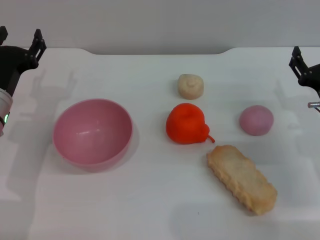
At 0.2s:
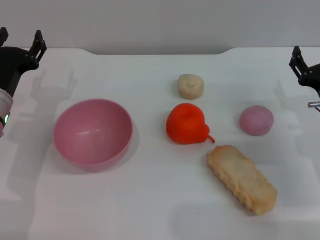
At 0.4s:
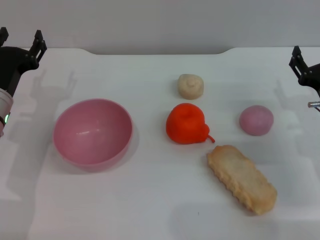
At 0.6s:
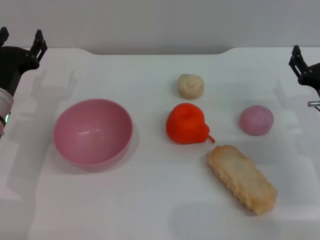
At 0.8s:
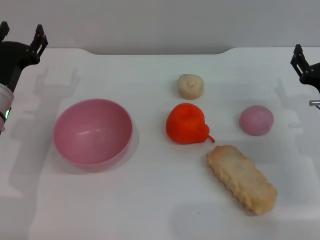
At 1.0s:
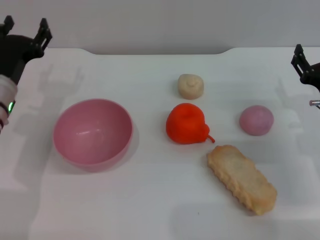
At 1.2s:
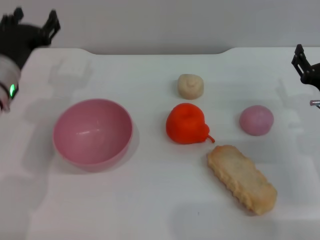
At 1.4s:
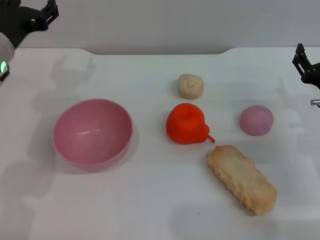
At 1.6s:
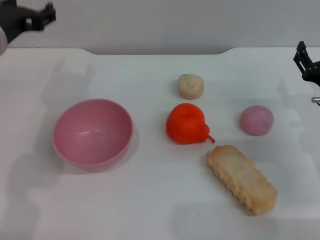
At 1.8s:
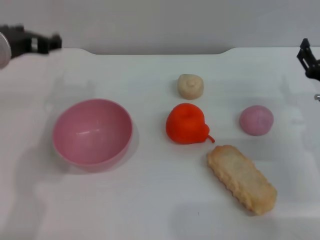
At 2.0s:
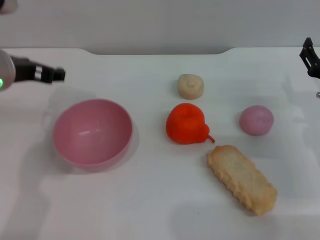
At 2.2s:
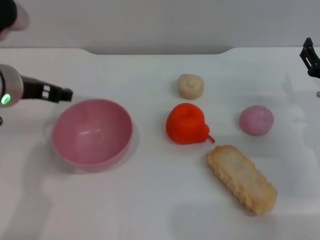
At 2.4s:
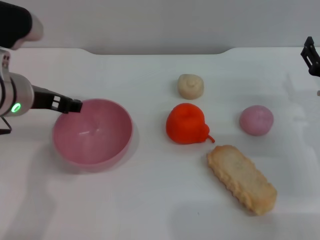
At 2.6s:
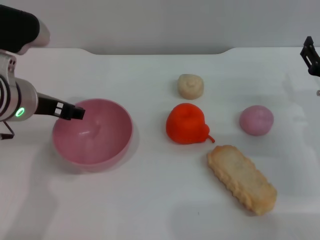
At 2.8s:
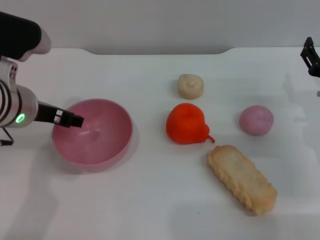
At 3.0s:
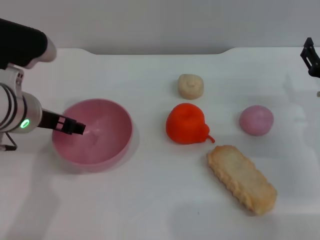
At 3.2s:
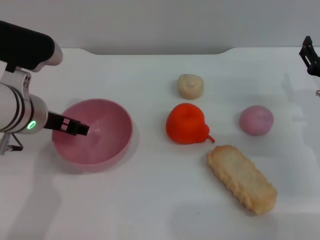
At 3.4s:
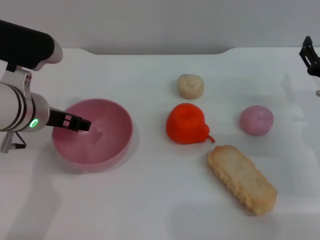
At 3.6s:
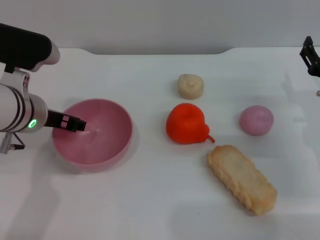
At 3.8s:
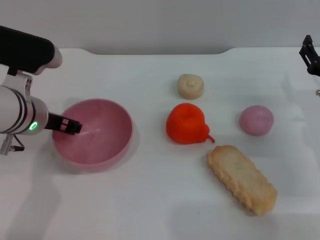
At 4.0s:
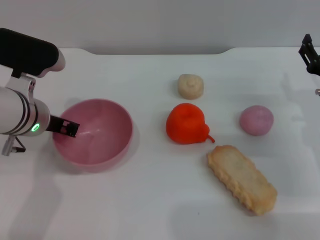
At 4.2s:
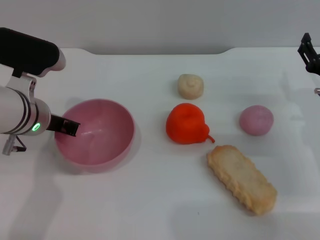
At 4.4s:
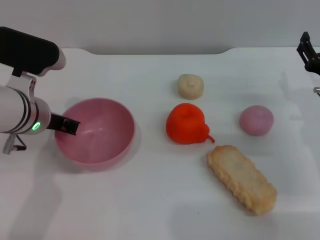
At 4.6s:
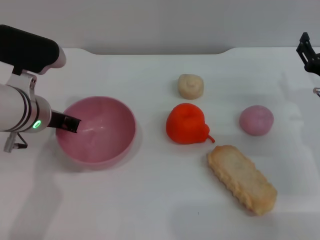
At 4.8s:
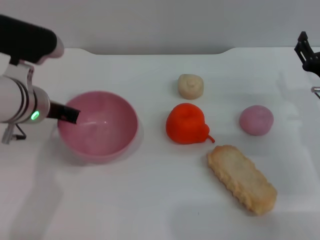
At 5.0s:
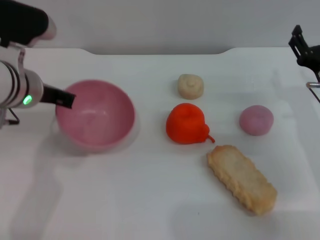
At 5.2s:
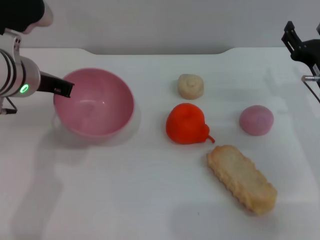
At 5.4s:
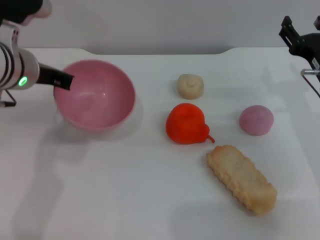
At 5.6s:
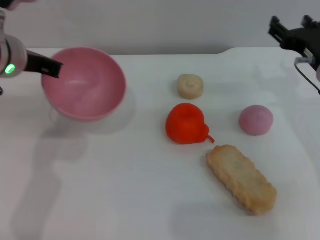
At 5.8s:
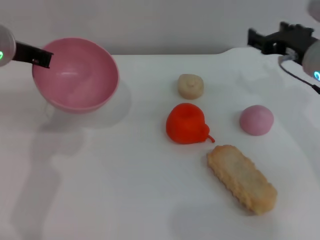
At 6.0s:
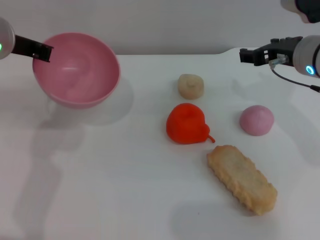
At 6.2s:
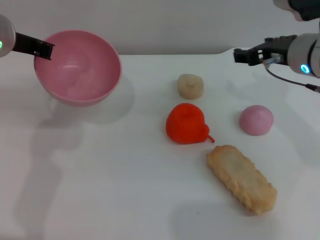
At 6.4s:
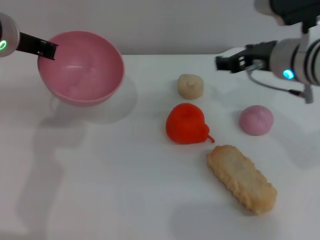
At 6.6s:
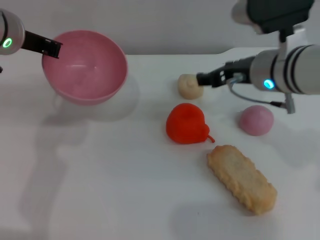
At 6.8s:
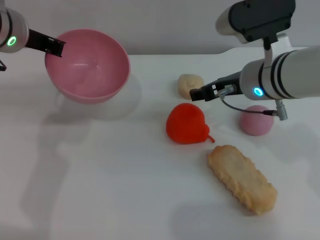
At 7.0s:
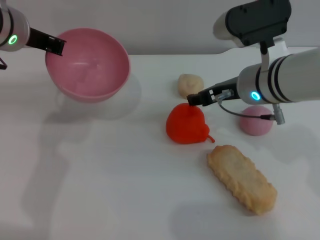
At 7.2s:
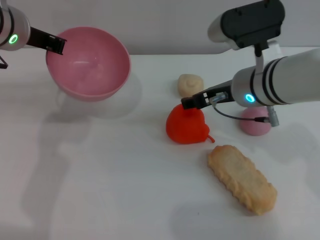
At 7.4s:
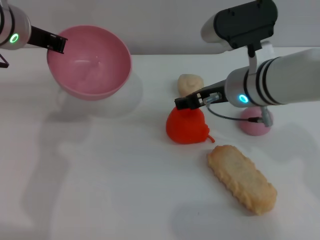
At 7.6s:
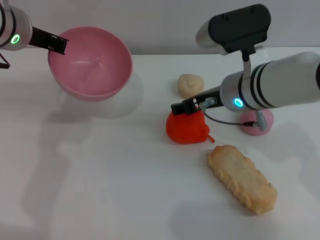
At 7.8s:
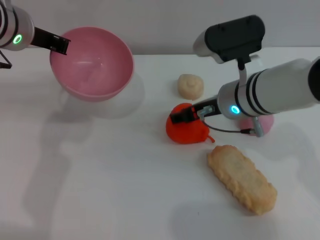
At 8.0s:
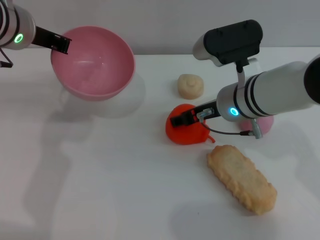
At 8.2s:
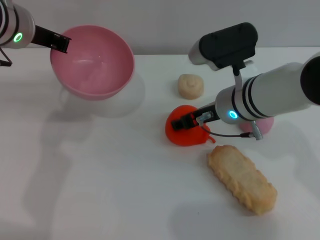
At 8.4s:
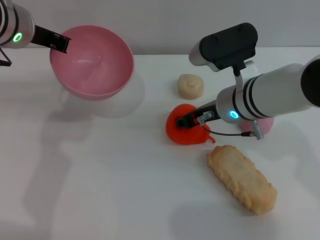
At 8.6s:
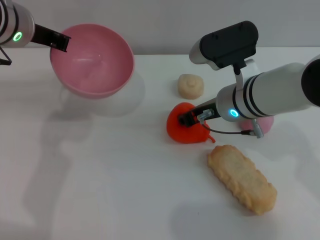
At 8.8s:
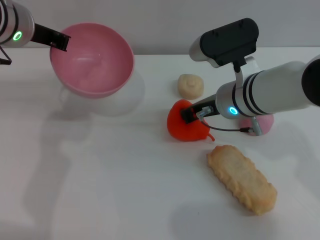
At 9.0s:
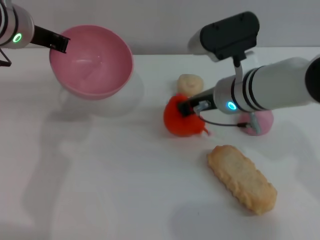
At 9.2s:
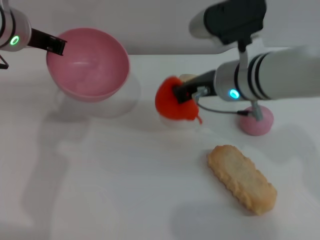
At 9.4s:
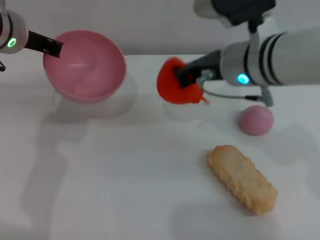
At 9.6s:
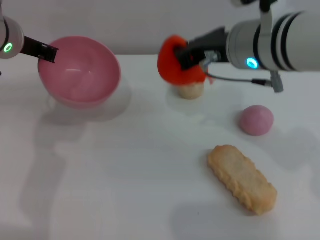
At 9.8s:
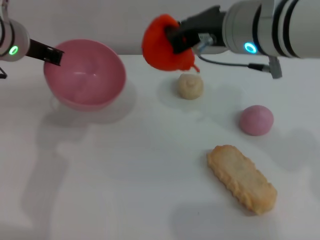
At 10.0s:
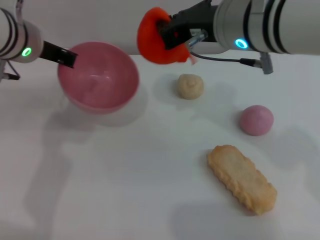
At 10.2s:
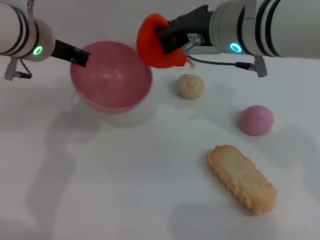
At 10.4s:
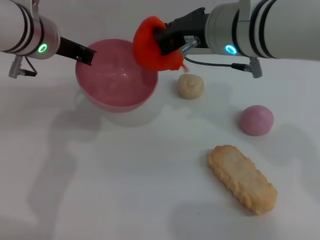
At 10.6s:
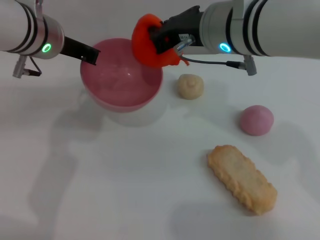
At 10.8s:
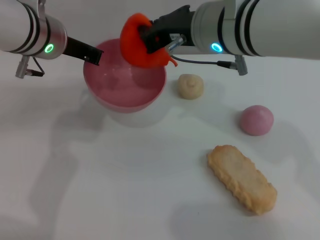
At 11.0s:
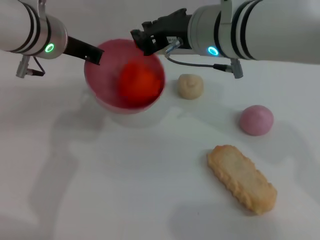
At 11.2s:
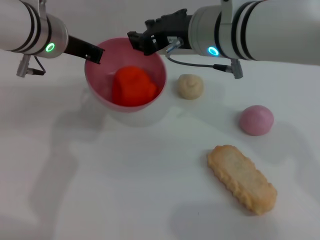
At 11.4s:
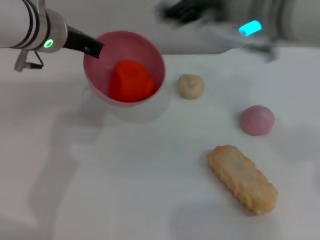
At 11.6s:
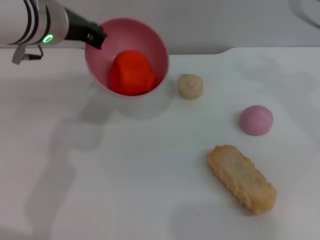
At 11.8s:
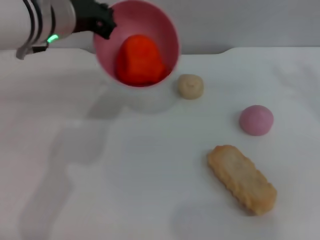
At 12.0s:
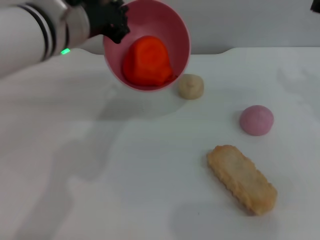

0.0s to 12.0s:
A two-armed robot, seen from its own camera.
Task of the whole recording: put the orange into the pink bowl and pour it out repeatedly.
Step, 0.0s to 6.0s: Pick up the bowl with the left gripper.
Step, 6.4s to 9.2s: Pick up the orange with the right gripper.
Step, 9.4s to 11.2s: Place the orange into the bowl.
0.0s to 1.6s: The left gripper goes some 15 cm upward.
1.6s to 3.0s: The left gripper changes place by roughly 5 cm.
3.0s to 4.4s: The left gripper closes.
4.4s to 6.0s: The left gripper is displaced upward by approximately 10 cm. Meanwhile the right gripper travels upward and to the left by some 15 cm.
6.0s to 7.6s: The right gripper is displaced to the left by some 10 cm.
7.6s to 9.0s: The right gripper closes up.
9.0s to 10.4s: The right gripper heads upward, covering approximately 10 cm.
10.4s to 12.0s: The right gripper shifts roughly 20 cm to the right, and opens its fingers; the left gripper changes place by some 5 cm.

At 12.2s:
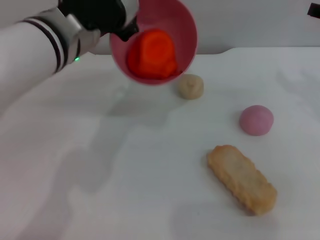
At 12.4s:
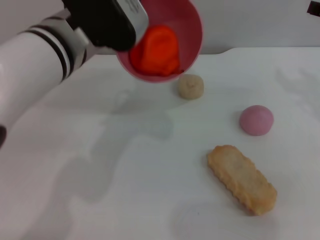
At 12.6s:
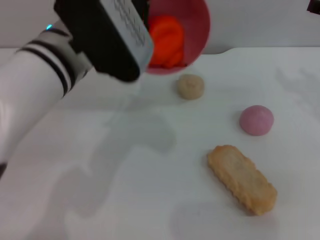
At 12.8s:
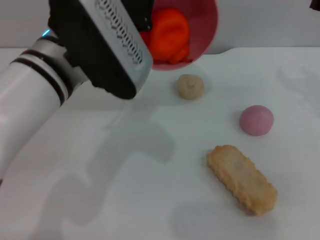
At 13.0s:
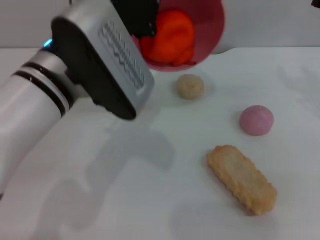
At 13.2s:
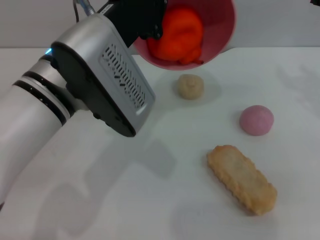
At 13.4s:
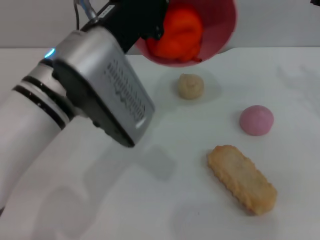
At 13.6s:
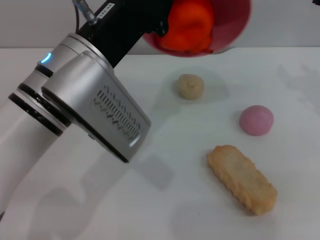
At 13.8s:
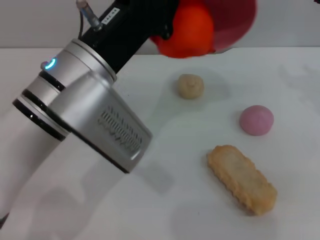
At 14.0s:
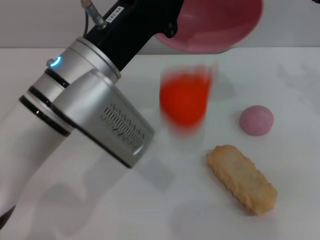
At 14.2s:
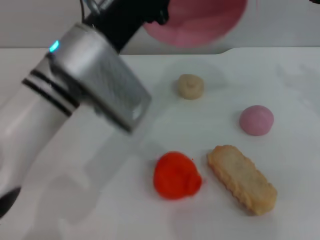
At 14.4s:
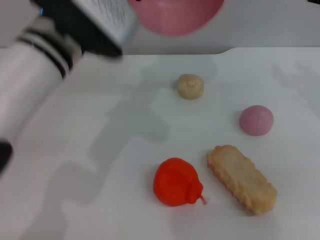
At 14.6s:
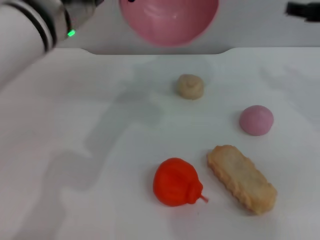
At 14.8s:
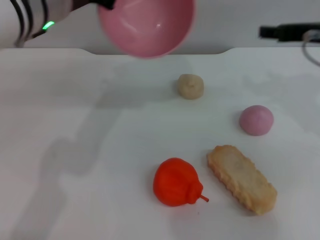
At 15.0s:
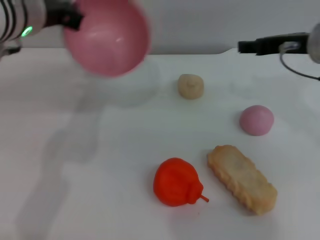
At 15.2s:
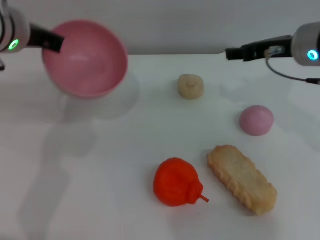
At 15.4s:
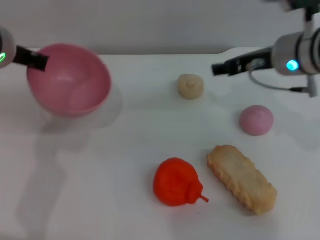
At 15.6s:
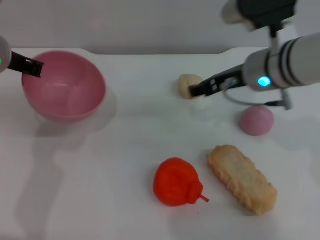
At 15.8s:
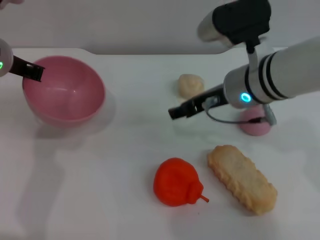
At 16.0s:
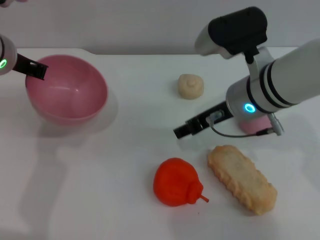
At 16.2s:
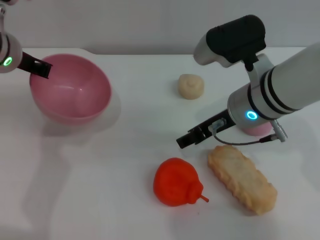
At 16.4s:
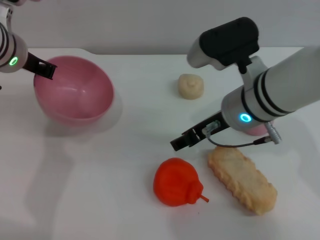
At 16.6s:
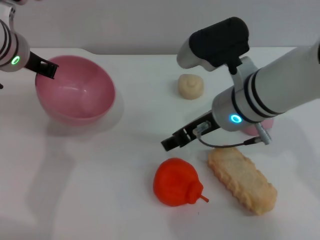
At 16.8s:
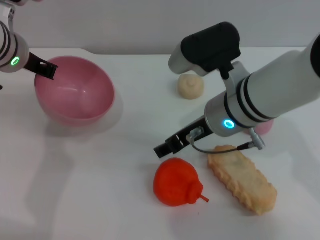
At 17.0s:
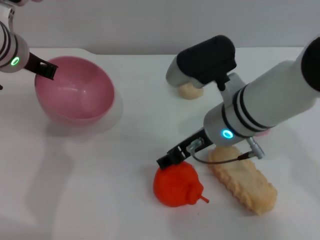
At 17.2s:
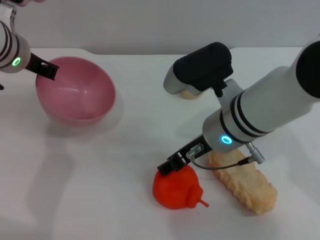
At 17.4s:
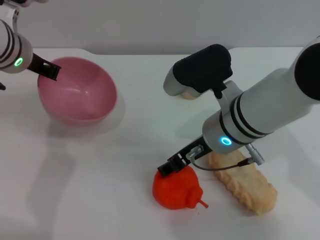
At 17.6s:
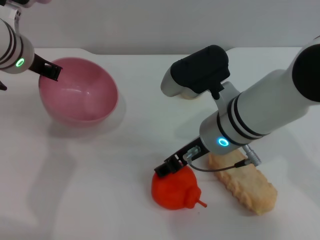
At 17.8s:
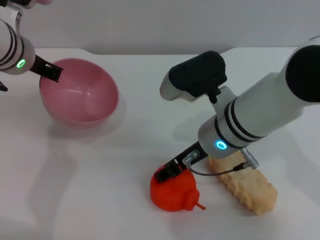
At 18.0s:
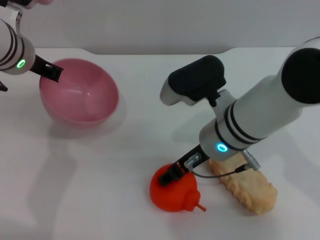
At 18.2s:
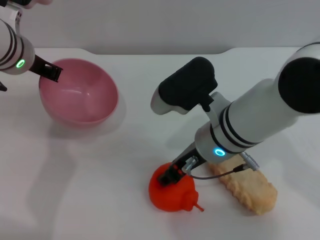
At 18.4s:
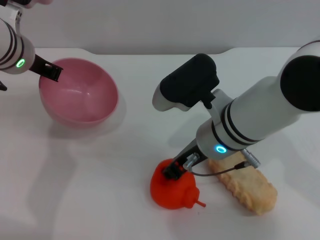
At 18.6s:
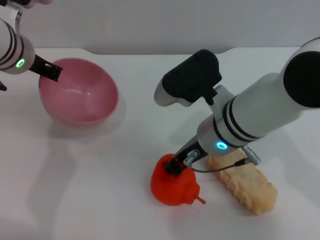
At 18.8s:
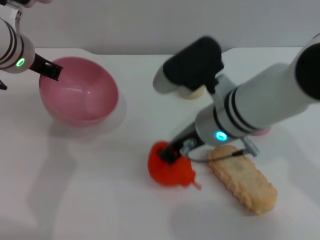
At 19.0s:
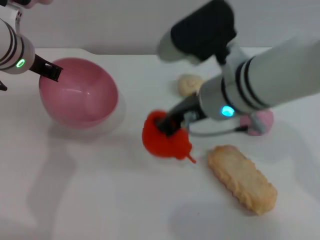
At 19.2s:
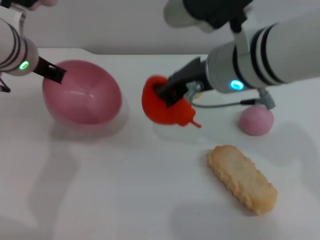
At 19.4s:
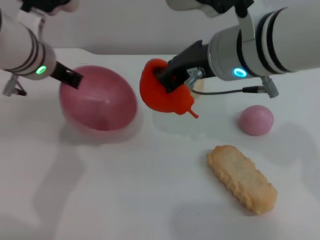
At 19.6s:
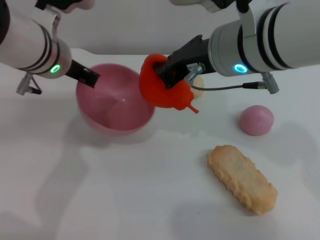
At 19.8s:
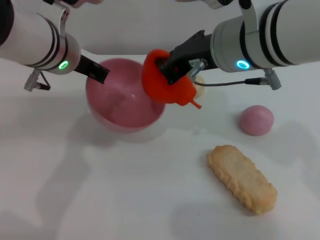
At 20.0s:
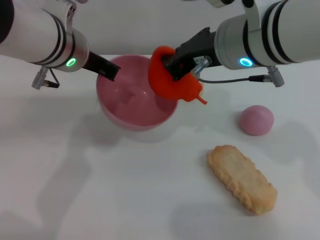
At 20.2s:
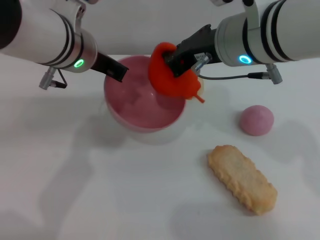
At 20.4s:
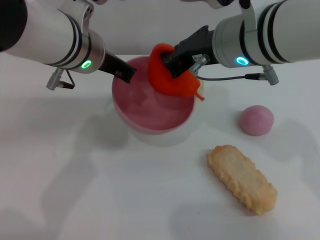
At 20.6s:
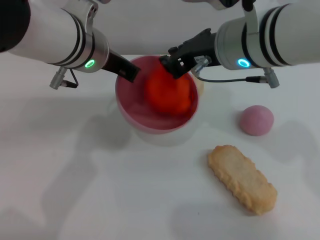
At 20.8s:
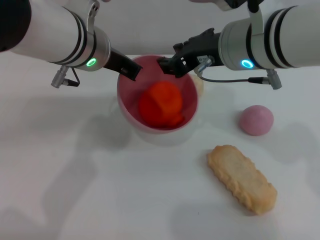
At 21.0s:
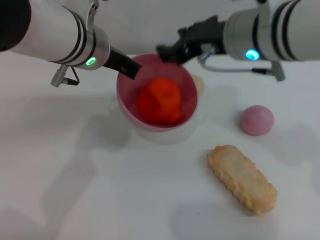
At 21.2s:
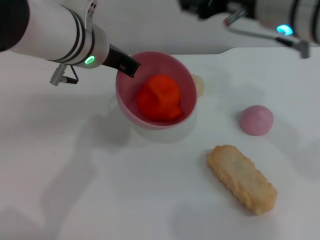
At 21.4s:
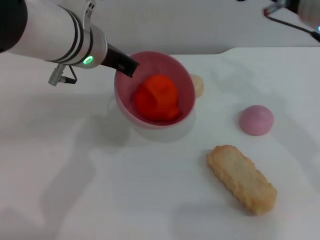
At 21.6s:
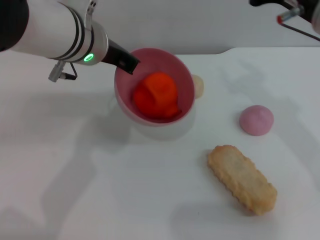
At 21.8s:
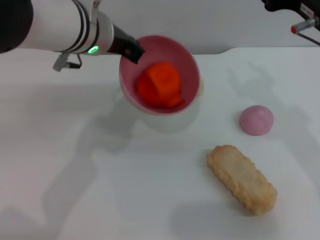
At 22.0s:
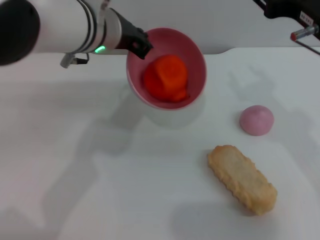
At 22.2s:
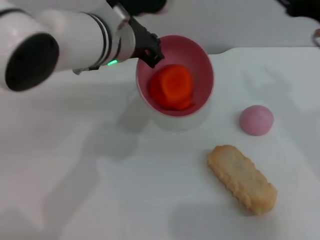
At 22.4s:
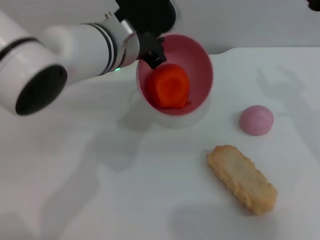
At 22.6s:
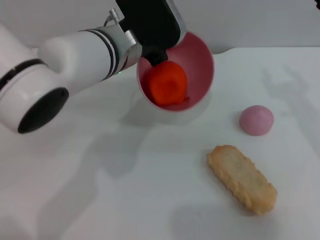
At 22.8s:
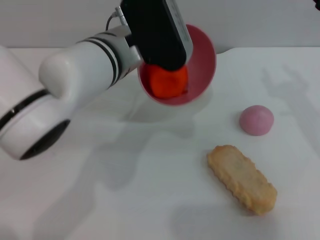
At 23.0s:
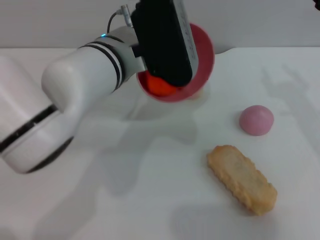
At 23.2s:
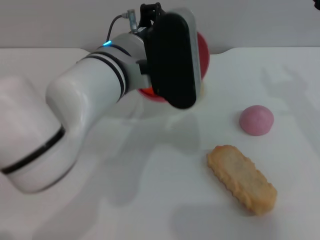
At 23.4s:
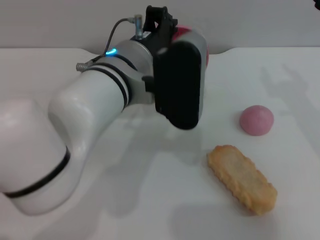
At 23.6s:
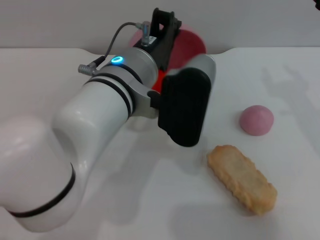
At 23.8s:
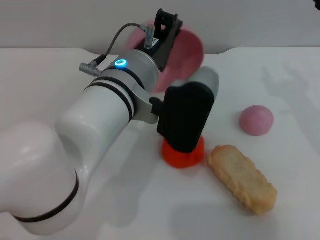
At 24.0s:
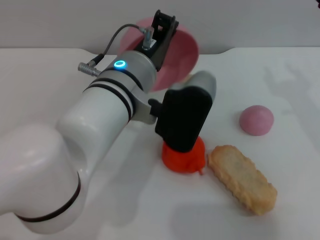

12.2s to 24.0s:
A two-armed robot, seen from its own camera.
Task of the whole recording: put the orange into the pink bowl and pour it out repeatedly.
Step, 12.2s to 14.0s: Pour the orange out of the bowl.
Step, 14.2s to 19.0s: Pick up the orange with the right gripper.
Step, 19.4s to 20.8s: Place the orange into the bowl.
12.2s to 13.6s: The left gripper heads backward, covering some 5 cm.
13.6s to 15.2s: The right gripper is displaced to the left by about 10 cm, while the left gripper heads forward and to the left, covering approximately 15 cm.
15.2s to 16.6s: The right gripper moves to the left, roughly 10 cm.
18.2s to 19.6s: The right gripper moves upward, approximately 10 cm, and closes.
19.6s to 21.0s: The right gripper opens up.
21.0s to 22.6s: The right gripper heads to the right, covering roughly 15 cm.
22.6s to 24.0s: The left gripper shifts about 5 cm backward.
